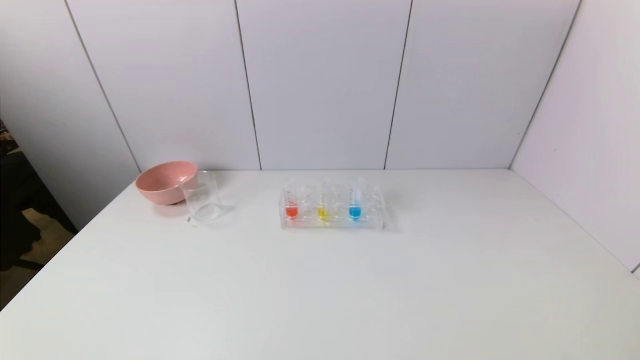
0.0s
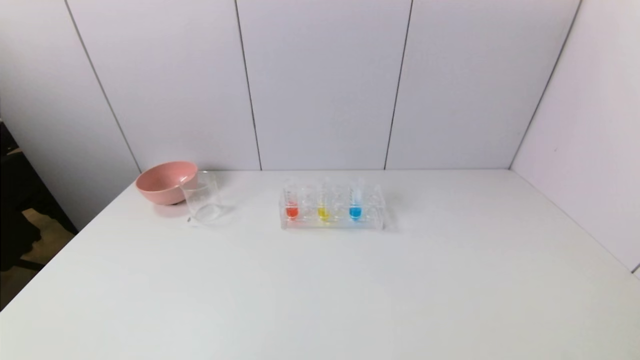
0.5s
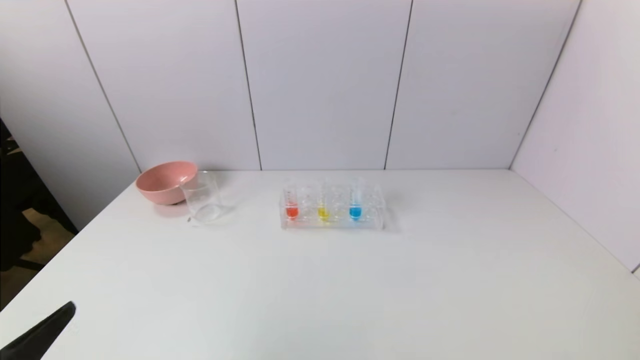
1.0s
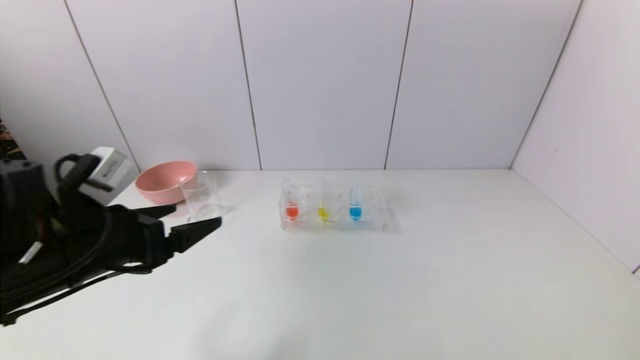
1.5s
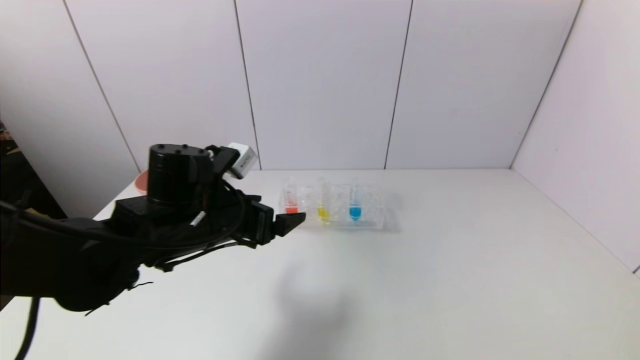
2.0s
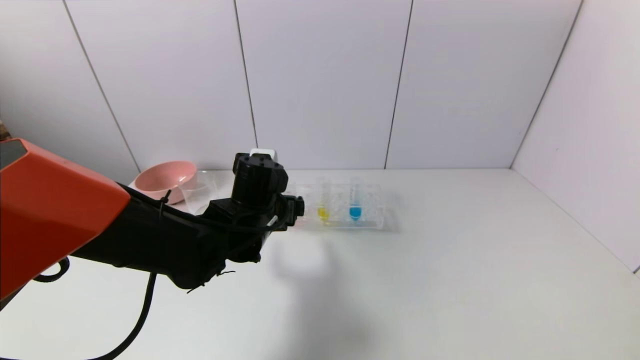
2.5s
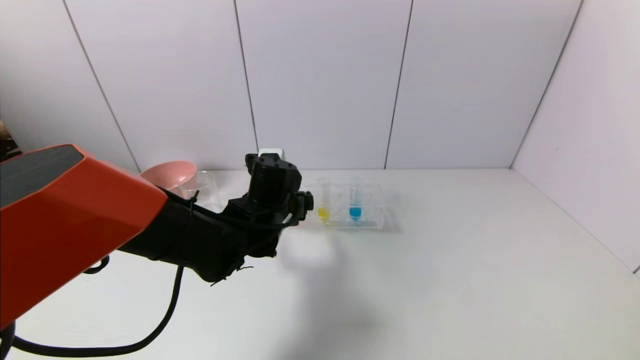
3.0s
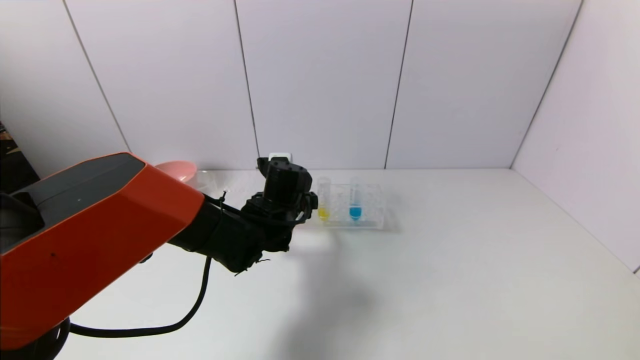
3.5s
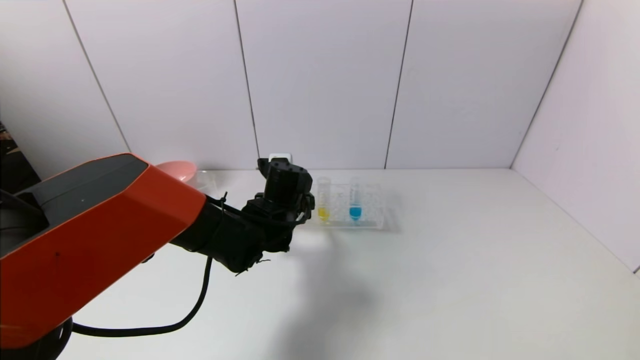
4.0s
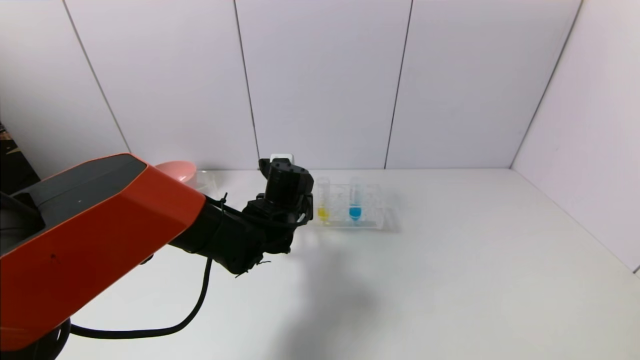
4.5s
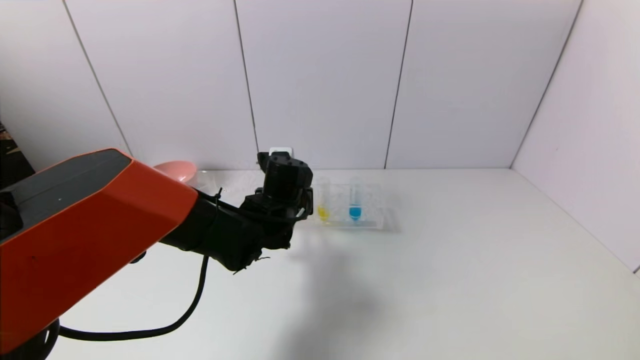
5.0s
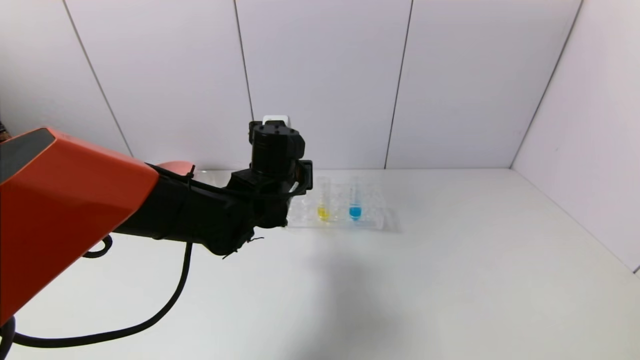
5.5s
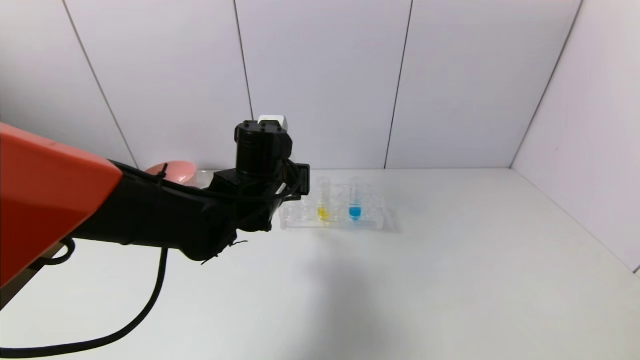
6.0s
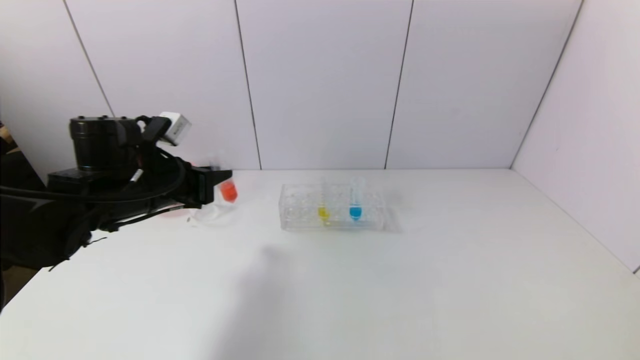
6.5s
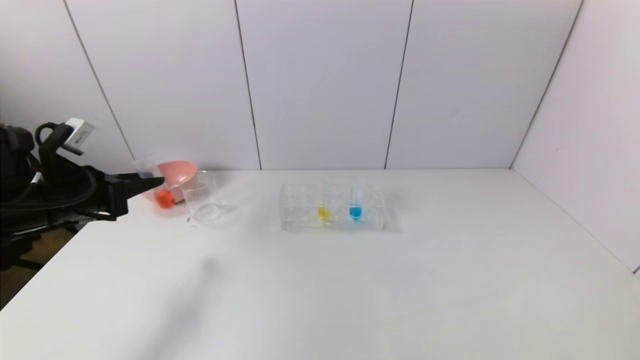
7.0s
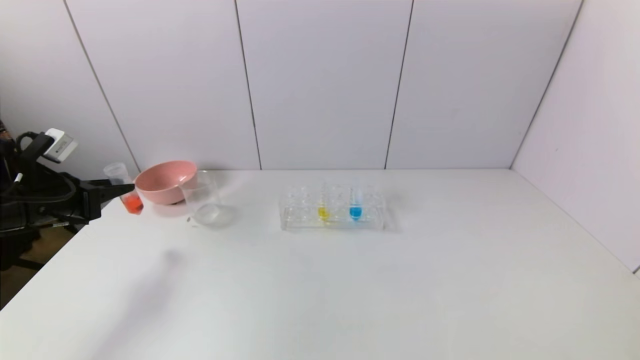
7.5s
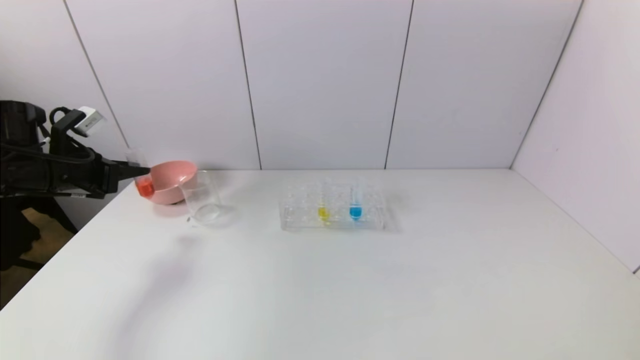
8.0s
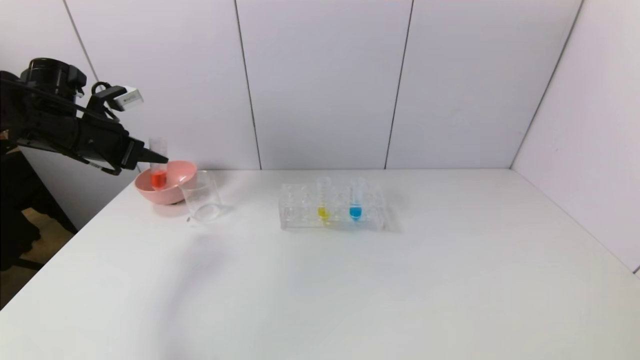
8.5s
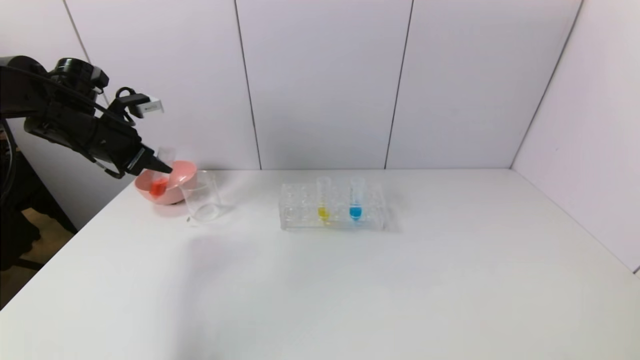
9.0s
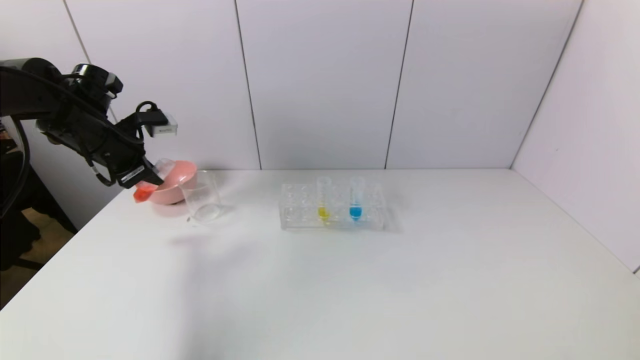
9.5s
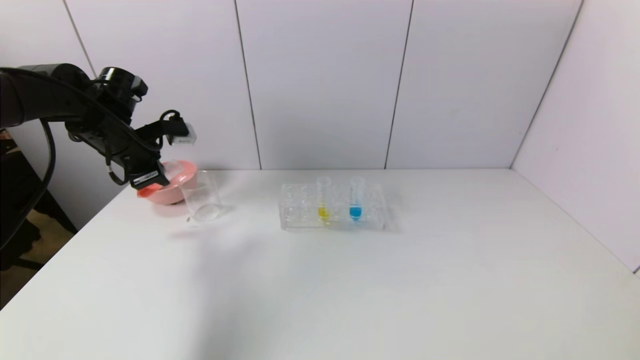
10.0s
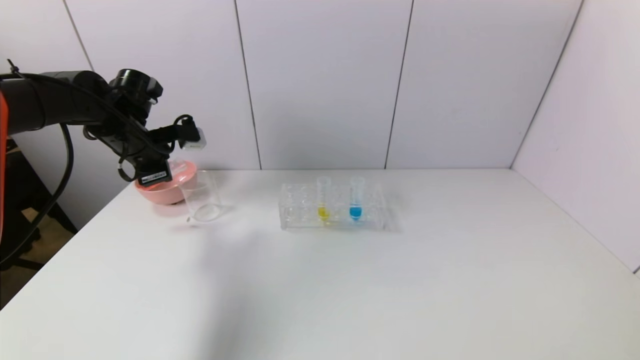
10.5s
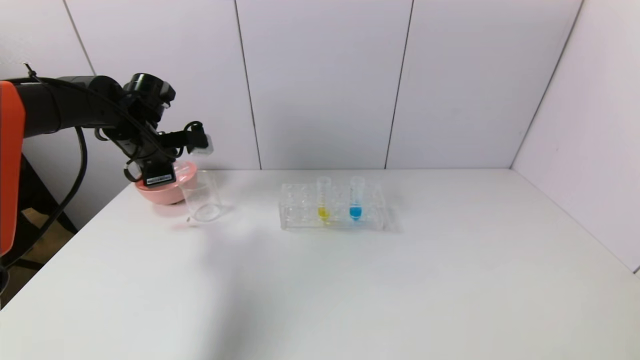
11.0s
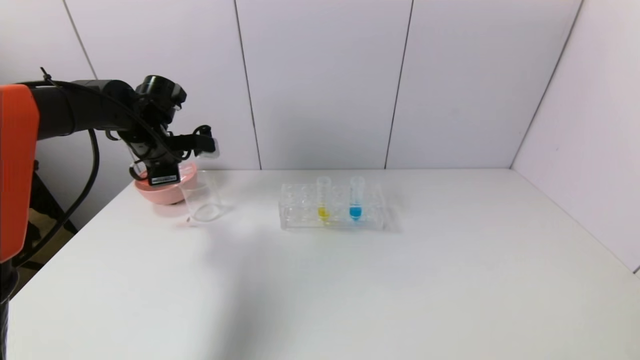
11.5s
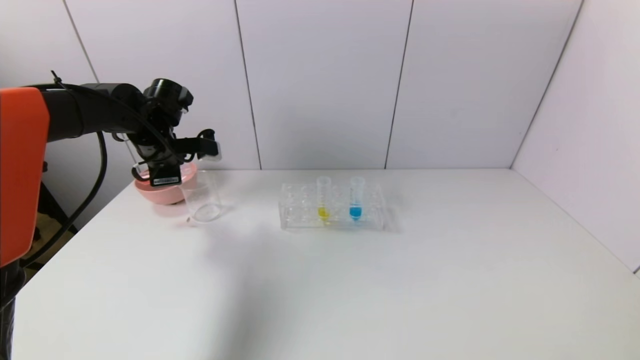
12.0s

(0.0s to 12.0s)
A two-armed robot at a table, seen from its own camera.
Task of the whole recording: pick up the test tube with red pigment and the test tube with blue pigment by grippers and pour them into the container.
Step, 0.0s - 4.0s: Grasp the red reagent with the left gripper.
0.0s - 2.0s: The left gripper shifts approximately 35 cm forward and to the right.
2.0s - 4.0s: The left gripper goes roughly 10 cm forward, to the right and downward.
4.0s - 6.0s: The left gripper goes roughly 5 cm upward, and closes.
6.0s - 8.0s: The left gripper is displaced to the left by about 30 cm.
8.0s - 10.0s: The left gripper travels to the right and forward by some 10 cm.
10.0s - 12.0s: The left gripper ends up roughly 5 cm from where it was.

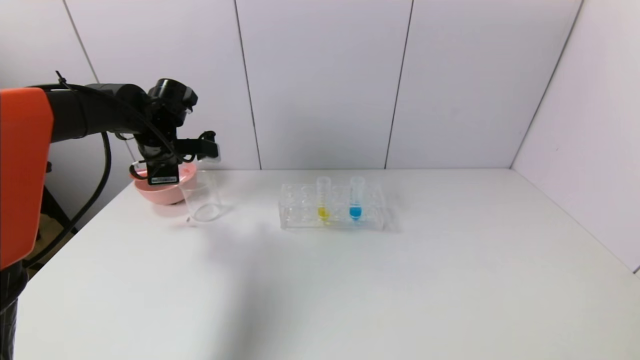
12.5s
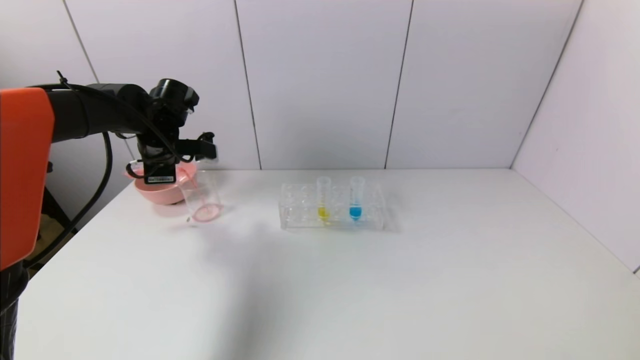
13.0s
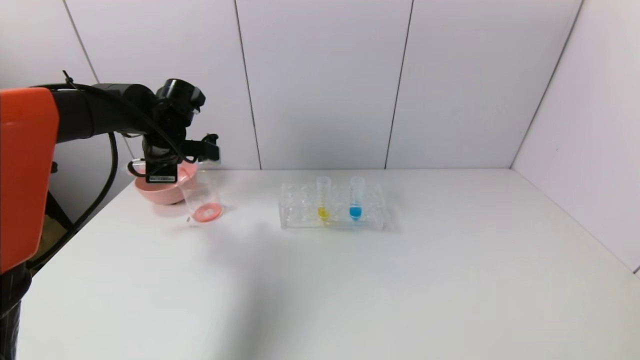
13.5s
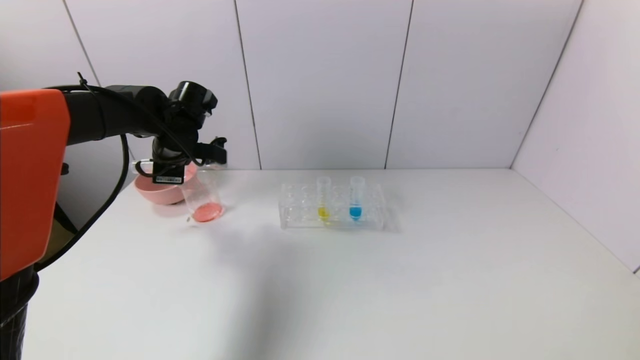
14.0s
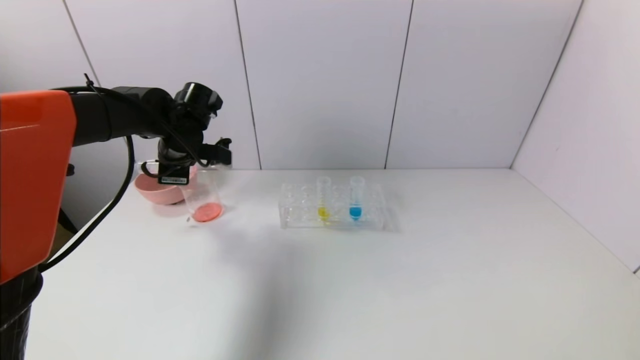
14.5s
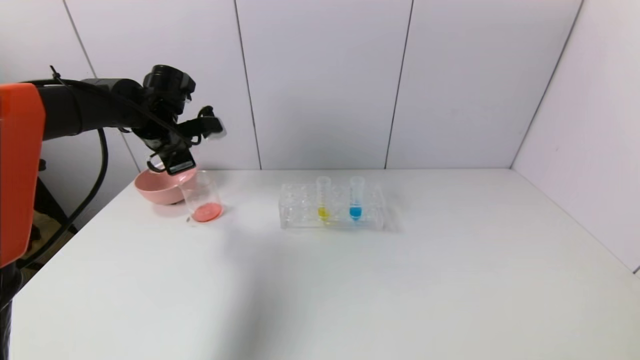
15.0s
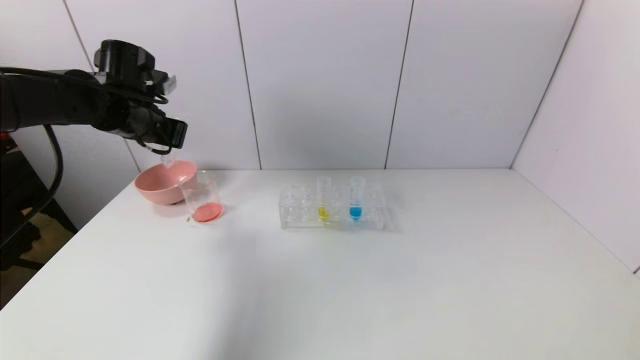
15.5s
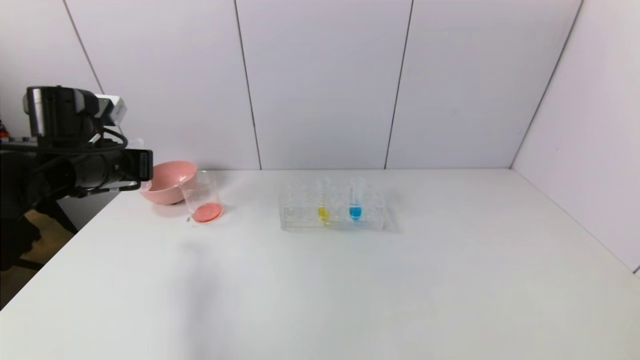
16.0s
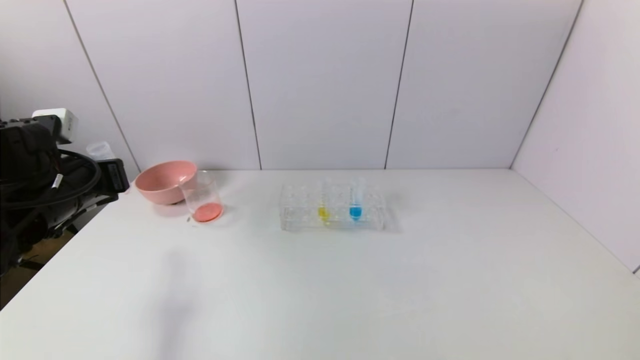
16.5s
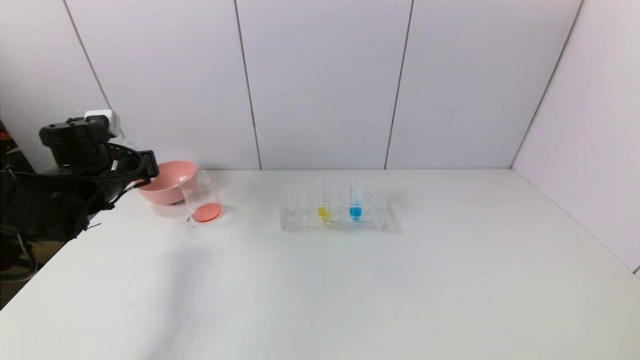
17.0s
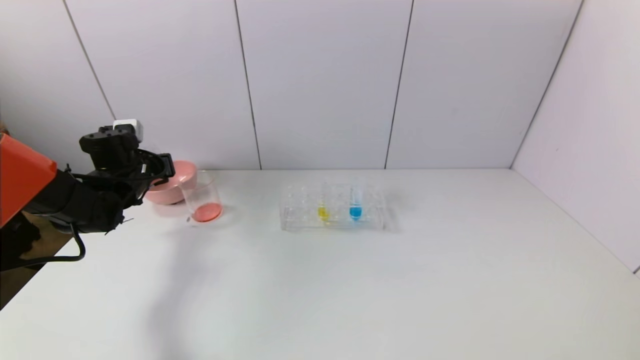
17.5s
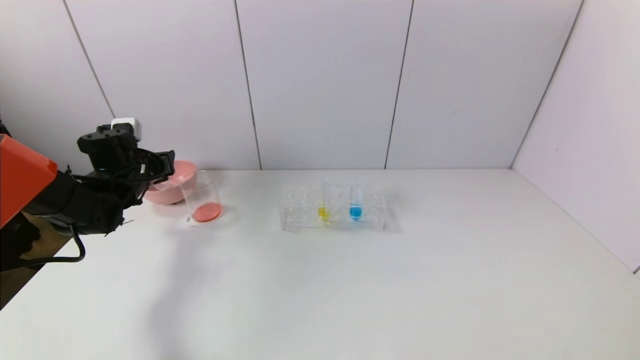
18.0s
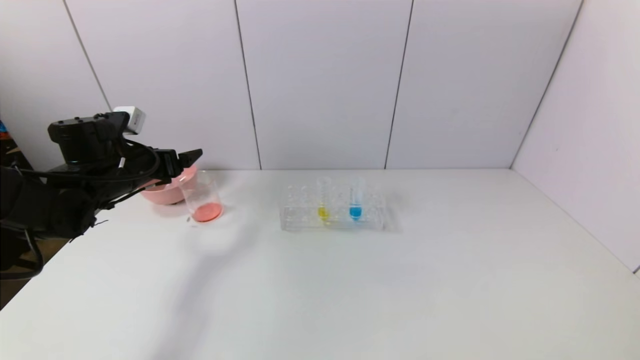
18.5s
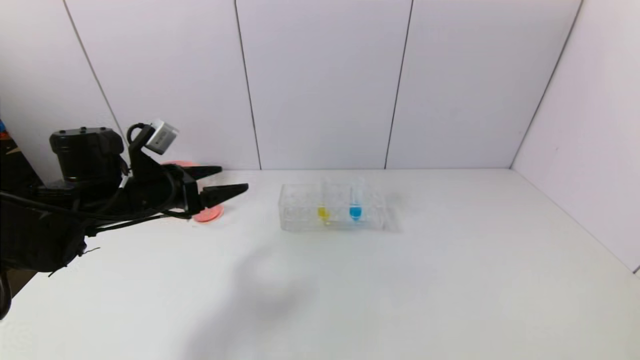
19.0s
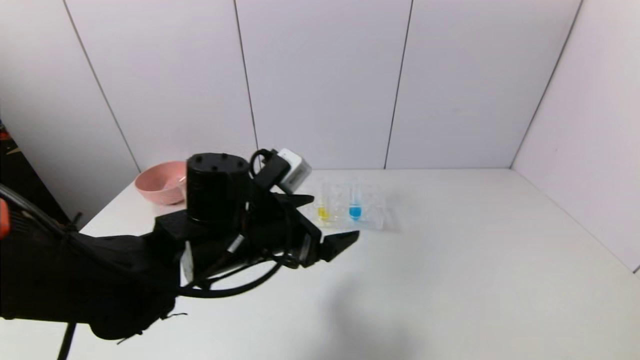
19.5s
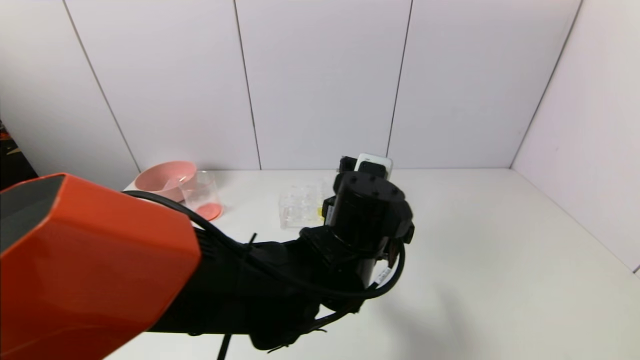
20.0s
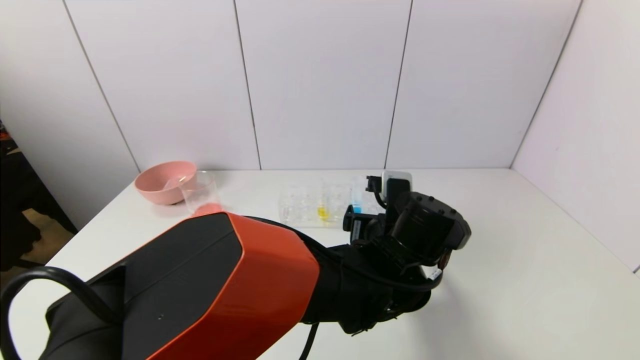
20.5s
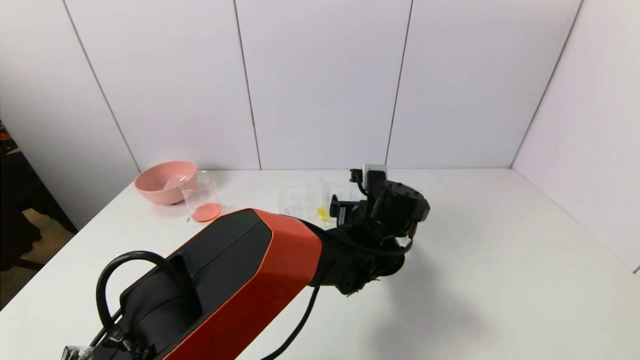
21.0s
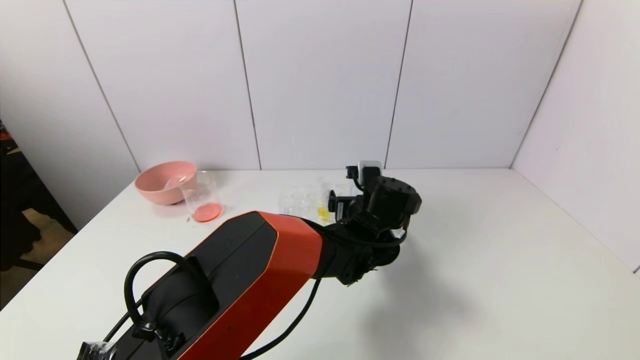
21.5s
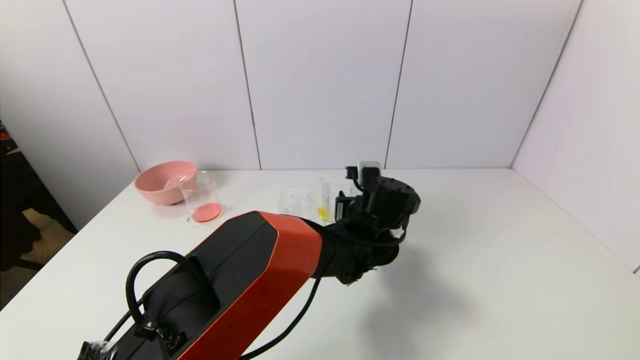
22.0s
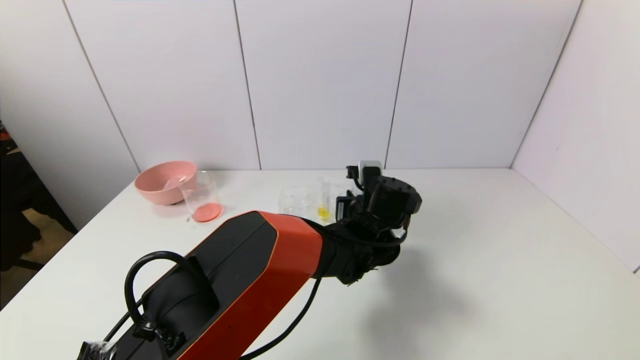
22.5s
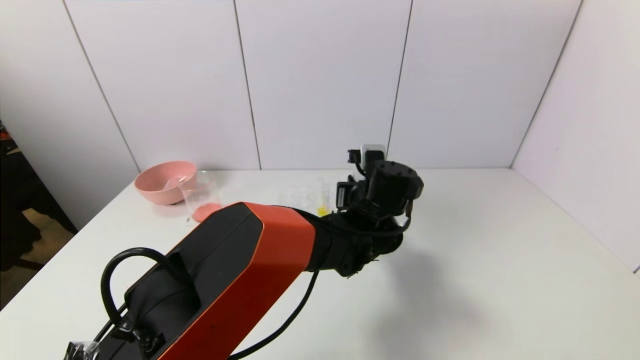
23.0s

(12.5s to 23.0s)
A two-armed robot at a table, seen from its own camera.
Task of the whole recording: pick up the test tube with red pigment and the test tube with blue pigment by grippers and pour them into the container.
Step, 12.5s - 14.5s: Pour the red reagent into the graduated cylinder with the left gripper.
Step, 15.0s - 17.5s: Place the test tube into the bowl with the left gripper.
Step, 18.0s - 22.0s: Grasp the blue reagent with the left gripper.
12.5s - 14.5s: The grippers stay close to where they were, moving slightly.
14.5s - 16.5s: The left gripper shifts roughly 15 cm backward and to the left.
16.5s - 19.0s: The left gripper is displaced to the right by some 5 cm, travels forward and back again, roughly 15 cm each way, and opens up.
19.0s - 21.0s: The left gripper shifts some 35 cm to the right.
21.0s - 23.0s: The left gripper closes.
